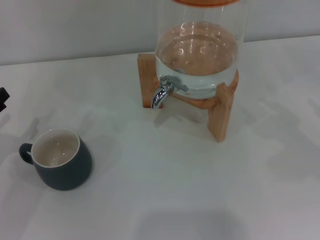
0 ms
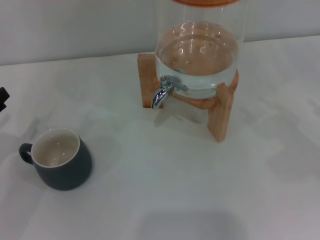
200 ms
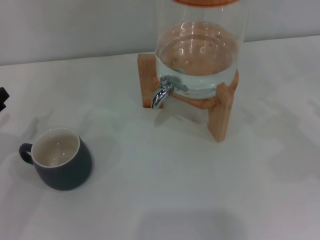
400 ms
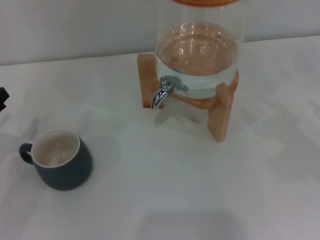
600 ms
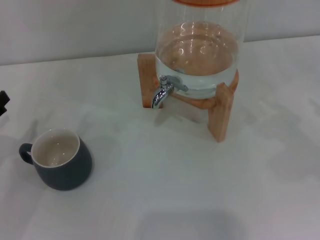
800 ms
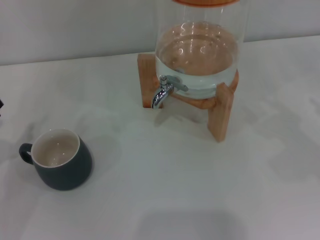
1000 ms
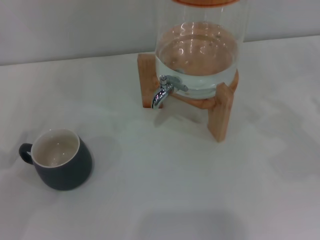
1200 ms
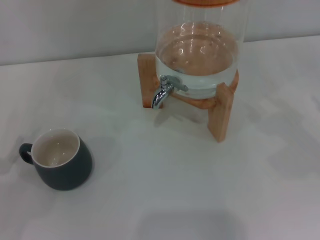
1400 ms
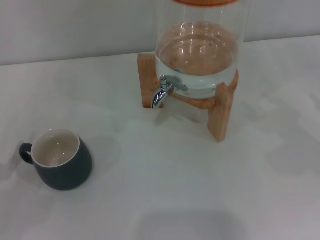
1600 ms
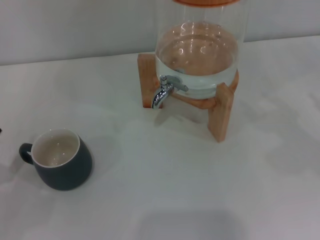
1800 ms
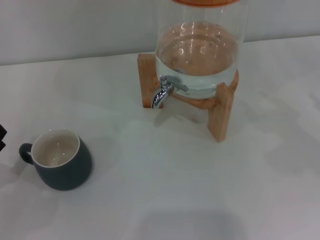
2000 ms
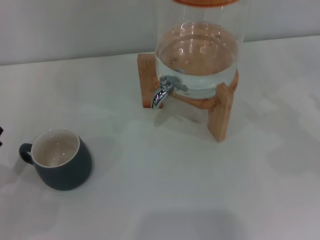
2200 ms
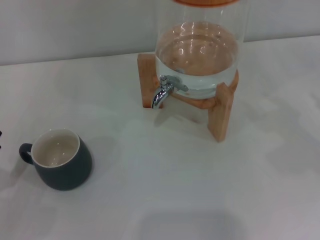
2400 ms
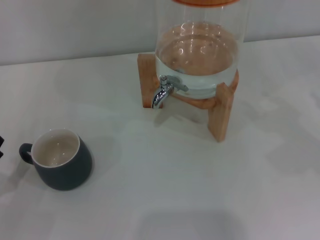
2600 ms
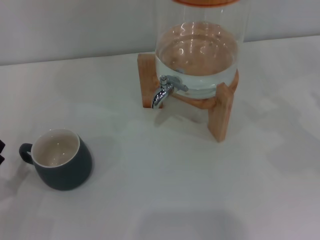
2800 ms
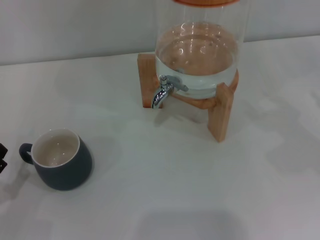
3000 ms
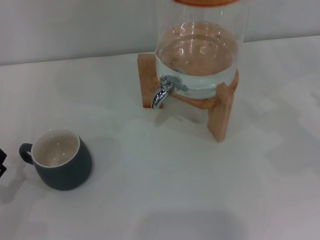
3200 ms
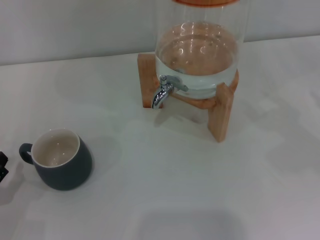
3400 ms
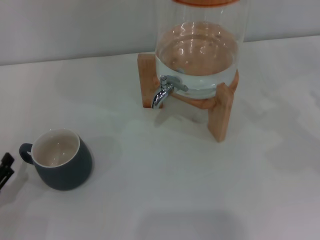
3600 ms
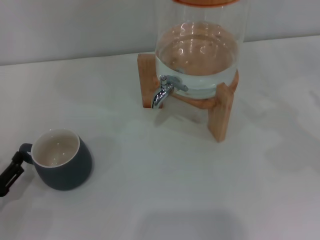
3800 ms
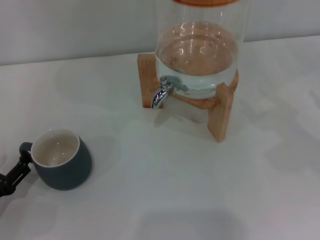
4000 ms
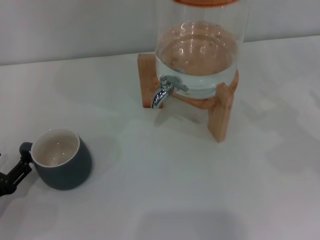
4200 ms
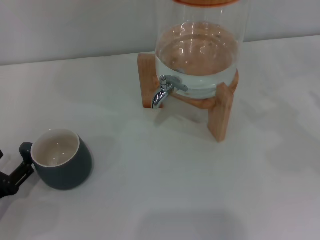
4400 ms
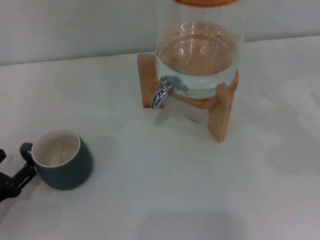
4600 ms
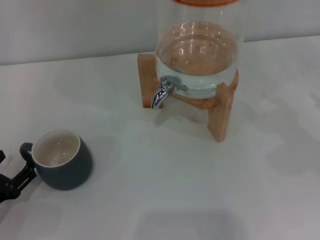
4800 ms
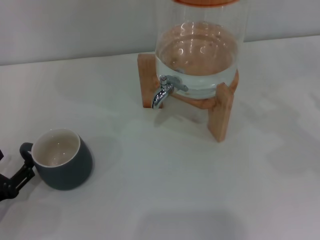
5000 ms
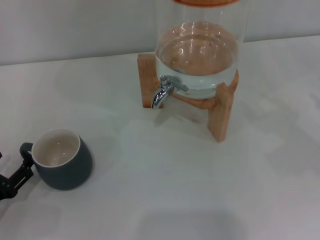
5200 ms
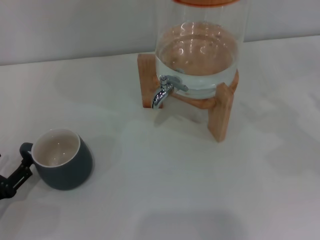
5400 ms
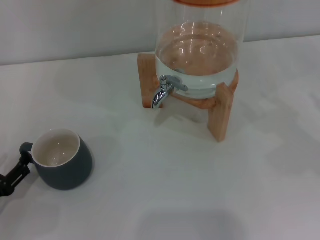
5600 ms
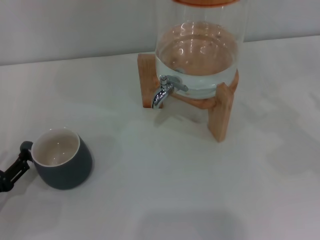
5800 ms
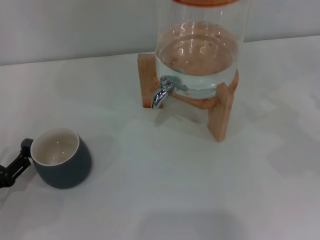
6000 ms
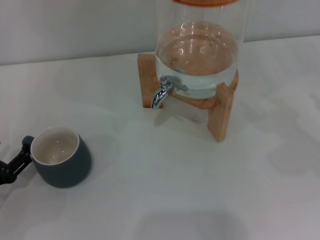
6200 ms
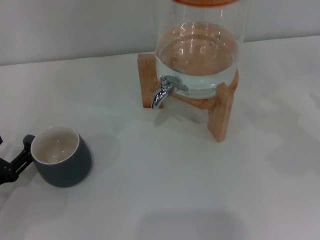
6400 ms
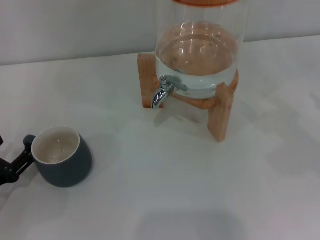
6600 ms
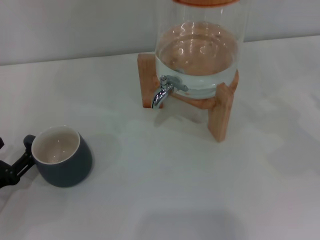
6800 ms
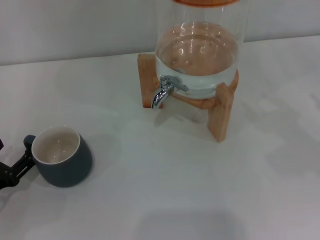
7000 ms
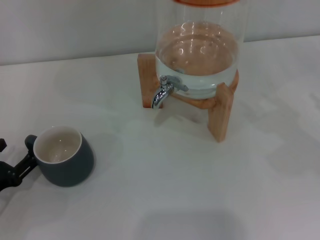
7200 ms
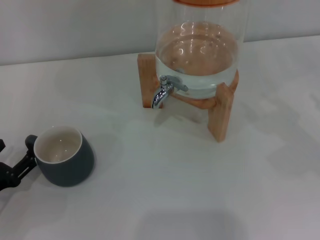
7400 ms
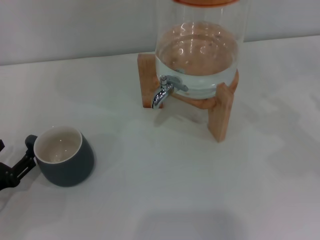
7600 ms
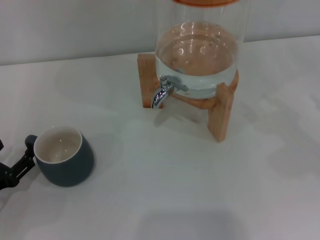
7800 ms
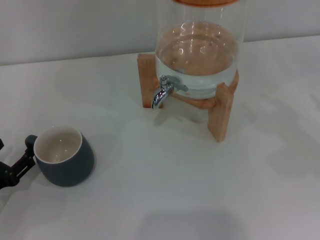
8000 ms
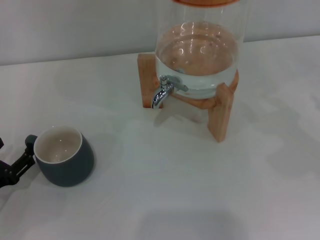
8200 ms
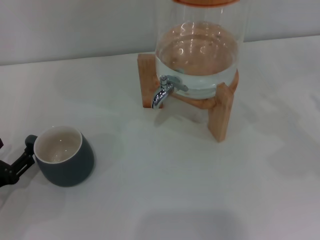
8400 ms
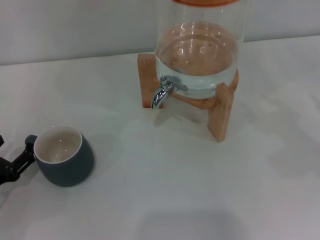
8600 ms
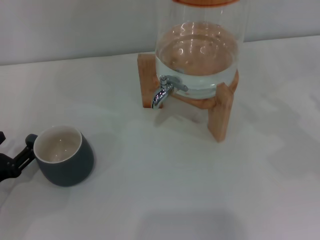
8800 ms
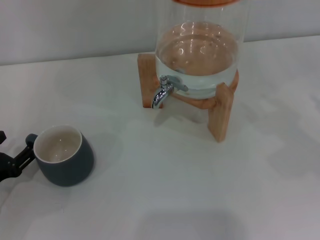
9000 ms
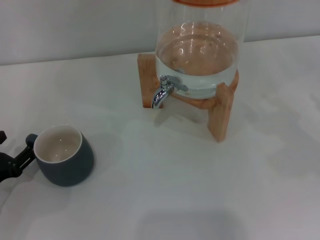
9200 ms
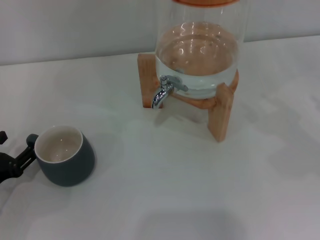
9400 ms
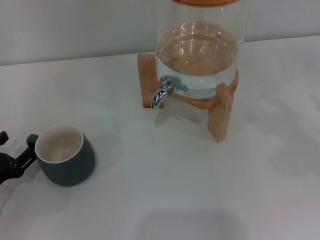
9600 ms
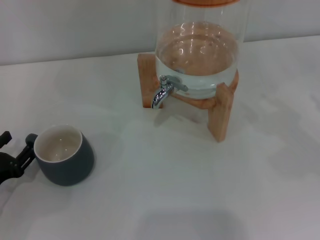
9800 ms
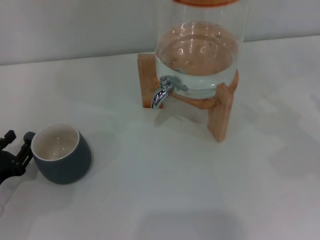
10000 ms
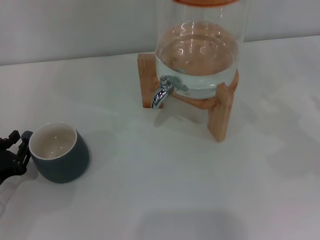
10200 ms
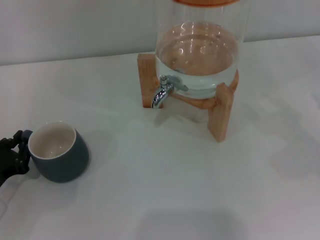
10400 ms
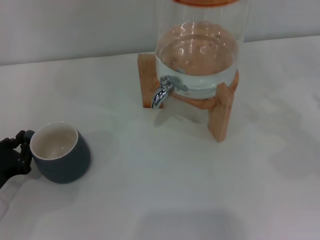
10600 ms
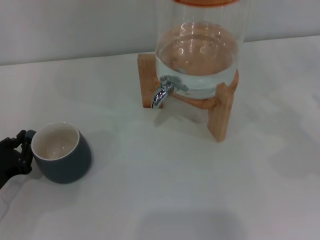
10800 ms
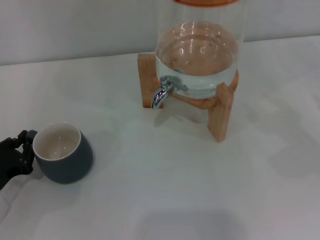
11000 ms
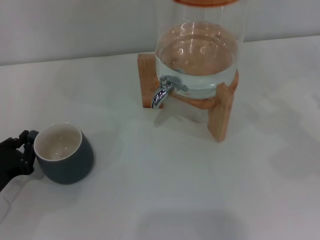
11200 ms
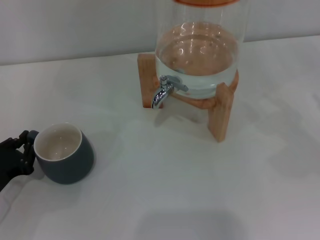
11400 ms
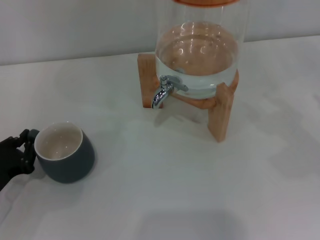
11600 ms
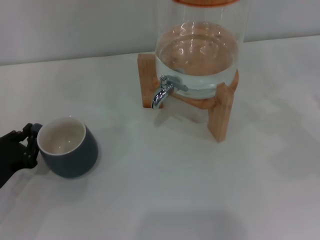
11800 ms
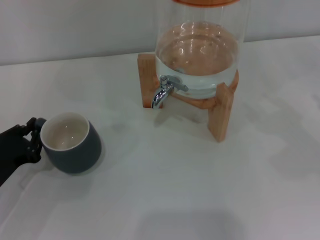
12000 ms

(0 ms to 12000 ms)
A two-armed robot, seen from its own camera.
Task of the whole recording: the left gripper pick up the black cup and place it horizontally under the faucet, the right gripper turn on the faucet to fill the cup, and then turn off the faucet.
3000 ms - 6000 ms: The grippers stay close to where they were, moving slightly.
6000 ms - 7600 ms: The two grippers keep their place.
7600 ms - 9000 ms: The grippers stay close to where they were, moving slightly.
9000 ms - 10400 ms: The left gripper closes.
10400 ms - 12000 ms: There are only small adjustments of the grippers.

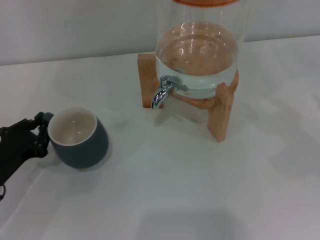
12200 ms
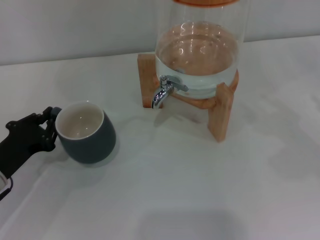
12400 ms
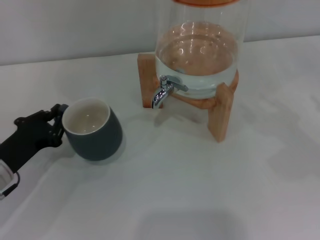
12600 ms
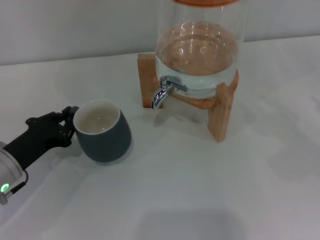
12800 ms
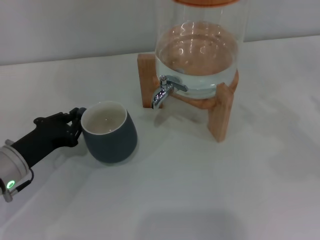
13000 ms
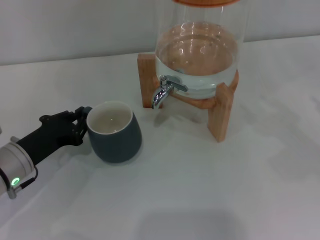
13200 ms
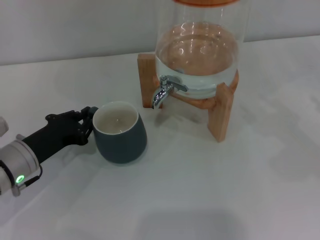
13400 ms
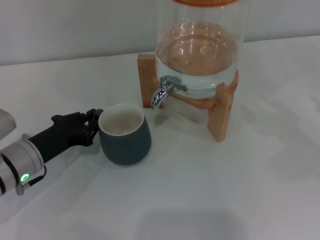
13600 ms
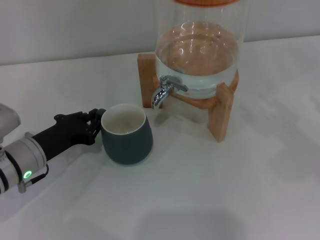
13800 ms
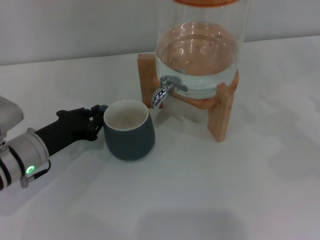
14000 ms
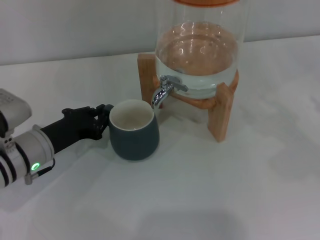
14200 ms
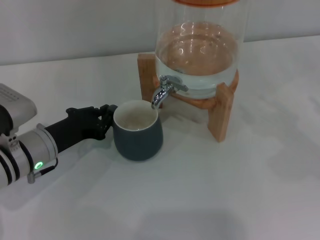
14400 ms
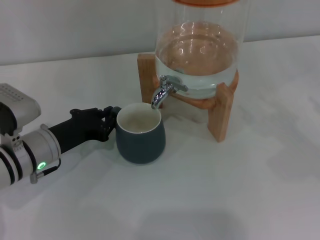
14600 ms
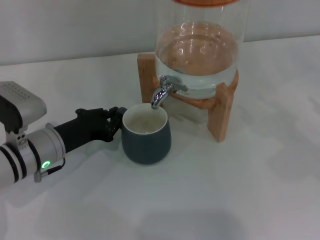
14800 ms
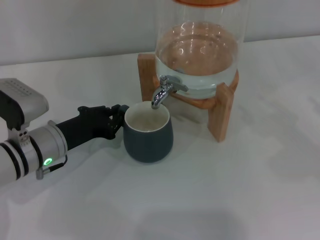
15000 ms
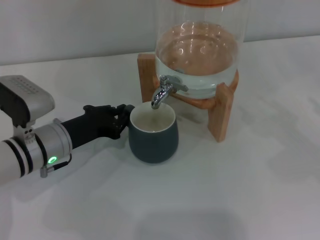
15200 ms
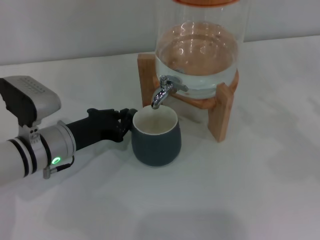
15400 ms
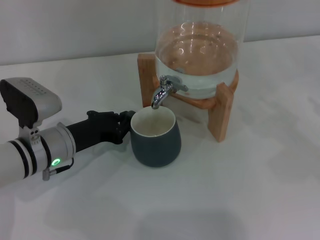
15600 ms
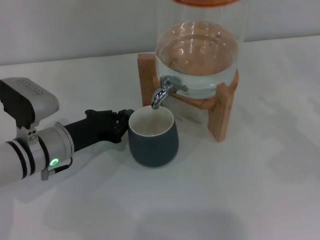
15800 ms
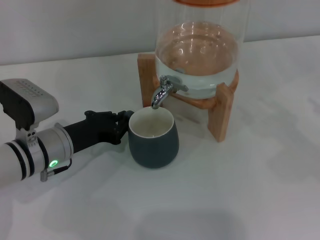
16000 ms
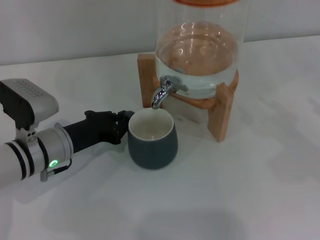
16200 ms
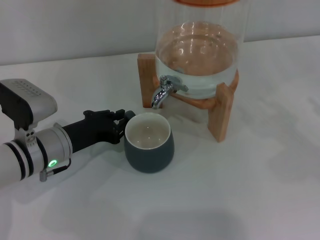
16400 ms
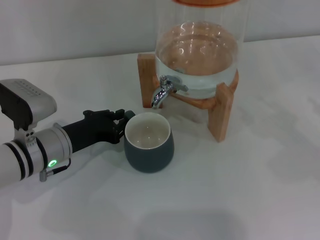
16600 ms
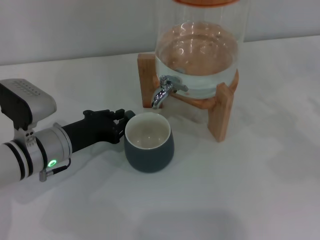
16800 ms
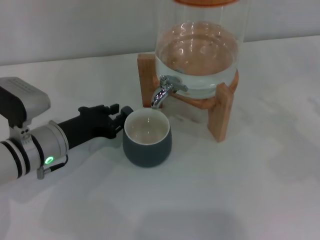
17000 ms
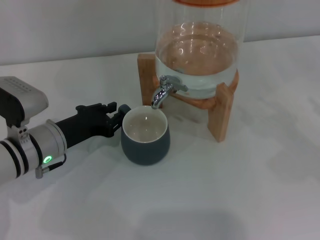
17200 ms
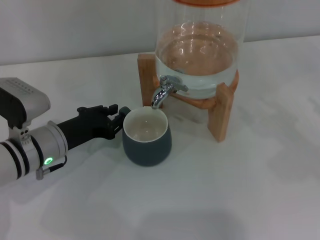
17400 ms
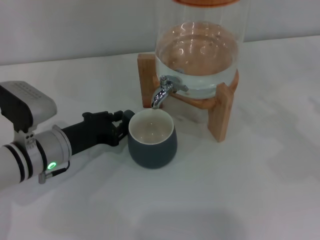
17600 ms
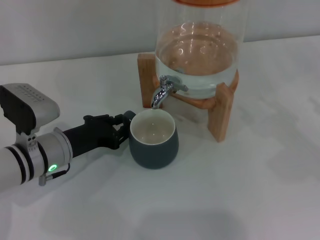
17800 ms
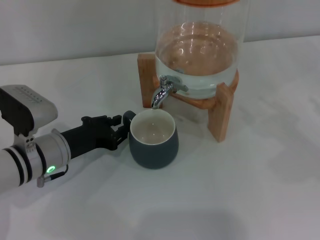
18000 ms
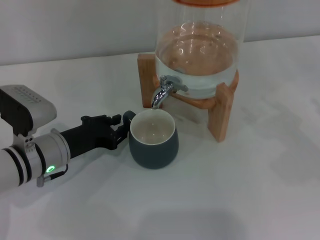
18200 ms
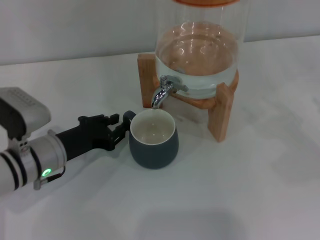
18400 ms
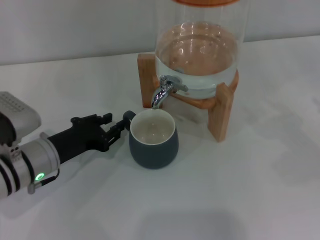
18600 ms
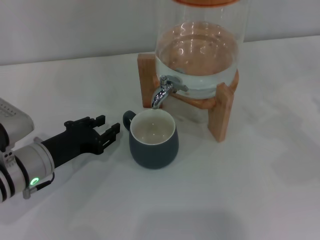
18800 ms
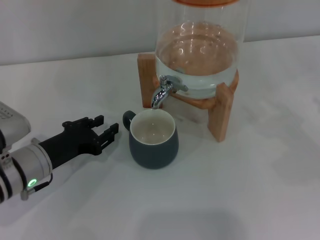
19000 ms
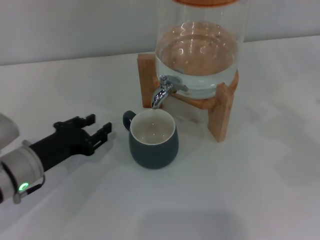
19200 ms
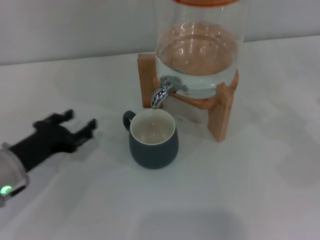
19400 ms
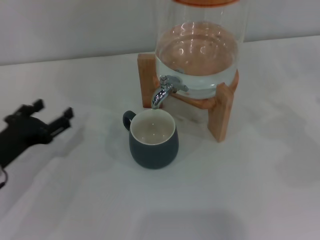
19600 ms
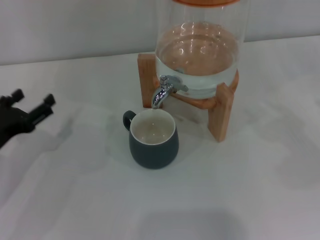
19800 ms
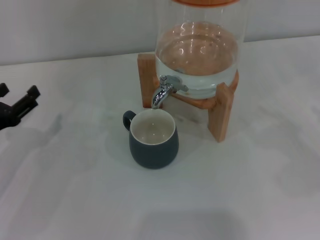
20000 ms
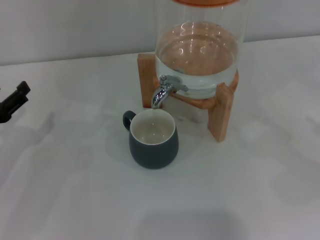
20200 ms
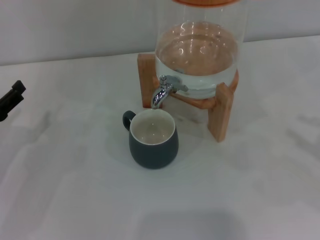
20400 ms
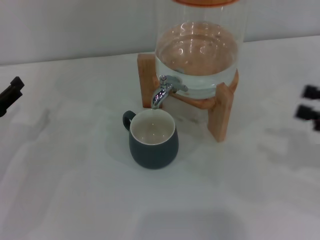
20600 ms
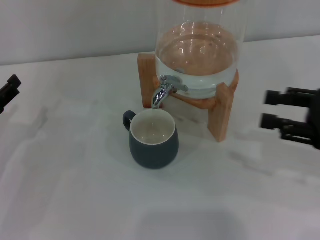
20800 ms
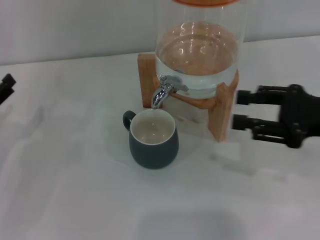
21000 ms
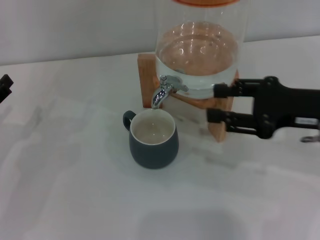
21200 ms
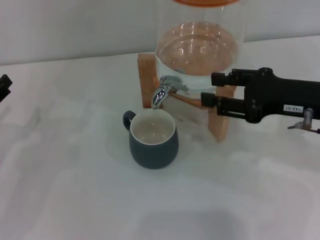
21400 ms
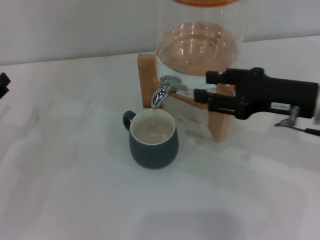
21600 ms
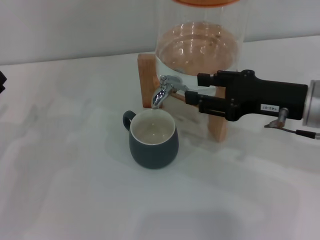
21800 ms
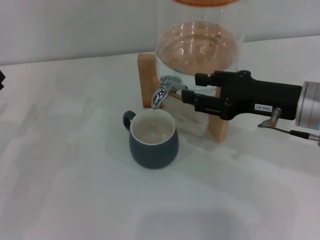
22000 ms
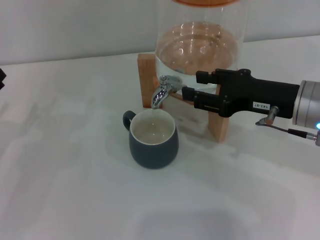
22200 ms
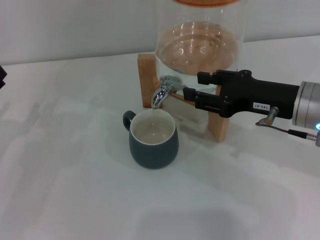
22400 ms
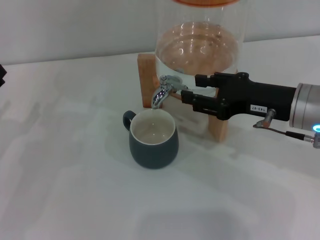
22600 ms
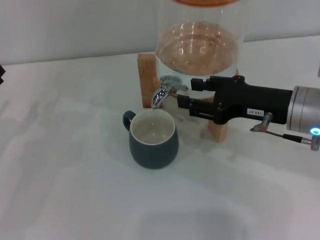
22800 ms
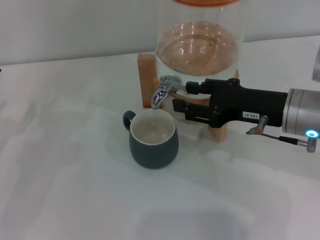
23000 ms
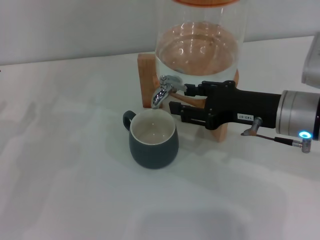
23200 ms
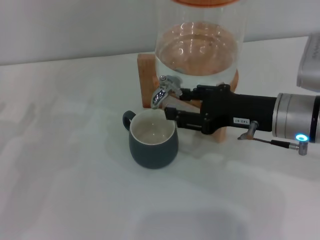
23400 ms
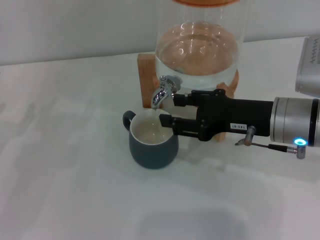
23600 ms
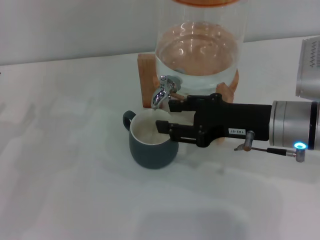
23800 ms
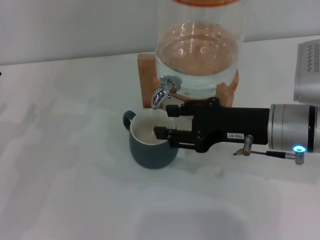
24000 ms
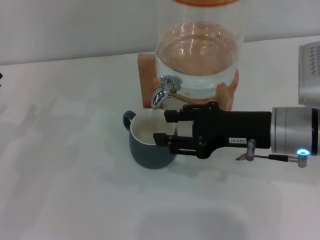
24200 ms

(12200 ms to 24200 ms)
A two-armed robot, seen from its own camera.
Task of the whole recording: the left gripper pick up the black cup and place it horizontally under the faucet, the right gripper turn on the faucet to fill the cup, and then turn off the faucet.
Step, 12200 ms - 18600 ms: Move the cup beneath the water dispenser nozzle with the left gripper.
Step, 18800 ms - 23600 ms: Open the dispenser valve and fill the cup with water with the right gripper.
12200 ms - 13800 ms: The left gripper heads to the right, covering some 5 cm.
13800 ms - 15200 ms: The grippers stay close to where they were, moving slightly.
15200 ms - 18200 ms: The two grippers keep their place.
18200 ms - 19800 ms: The left gripper is displaced to the left by roughly 10 cm, and opens up.
19800 ms - 21200 ms: The right gripper is displaced to the left by approximately 15 cm.
21200 ms - 22600 ms: The right gripper shifts by approximately 5 cm.
22600 ms - 24200 ms: There are only small adjustments of the grippers.
